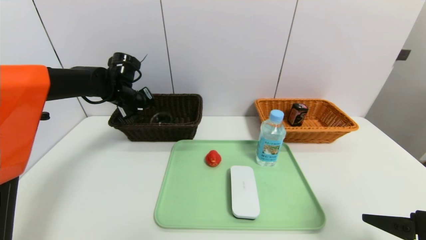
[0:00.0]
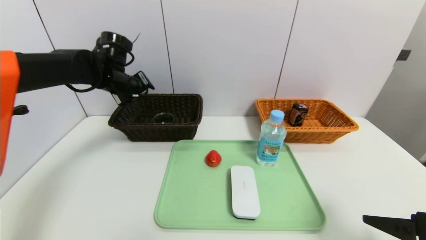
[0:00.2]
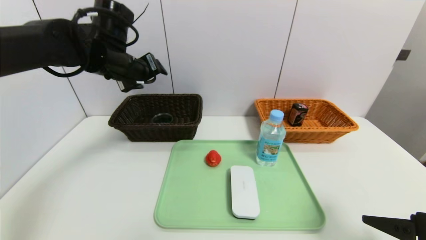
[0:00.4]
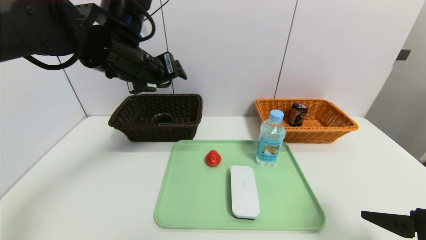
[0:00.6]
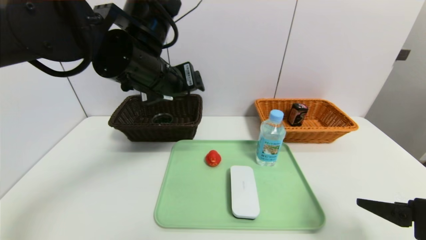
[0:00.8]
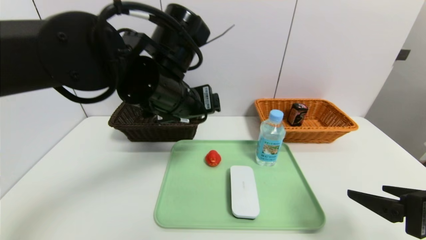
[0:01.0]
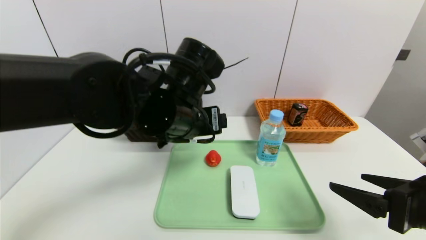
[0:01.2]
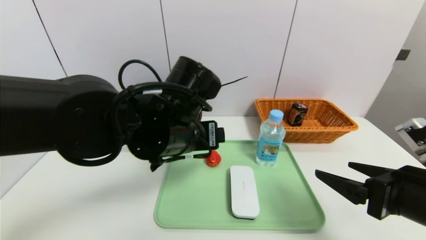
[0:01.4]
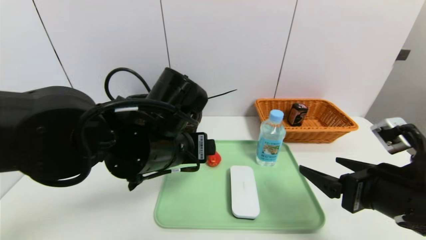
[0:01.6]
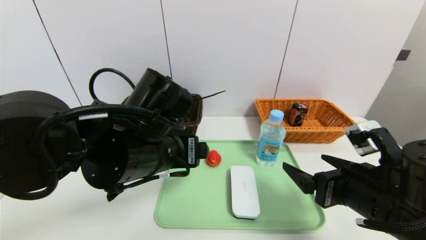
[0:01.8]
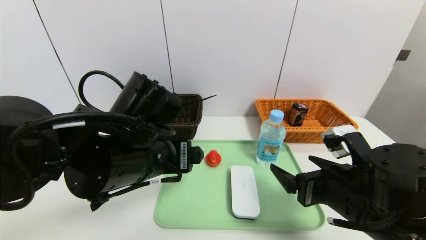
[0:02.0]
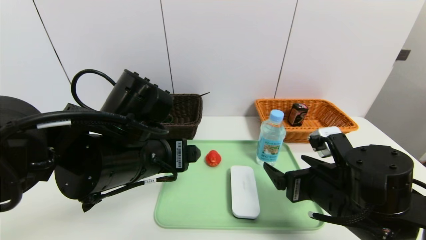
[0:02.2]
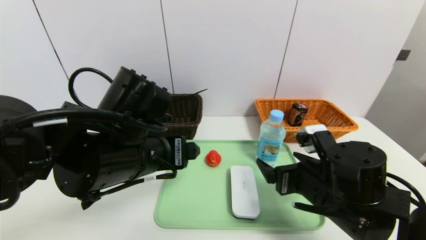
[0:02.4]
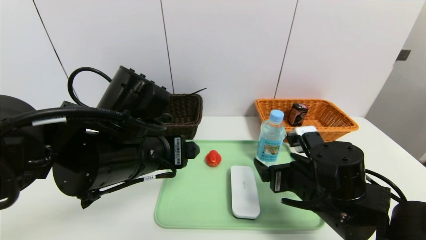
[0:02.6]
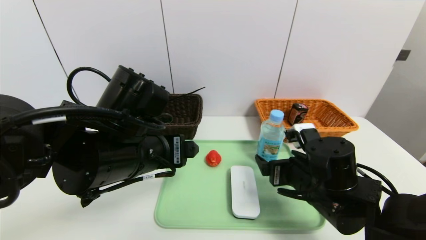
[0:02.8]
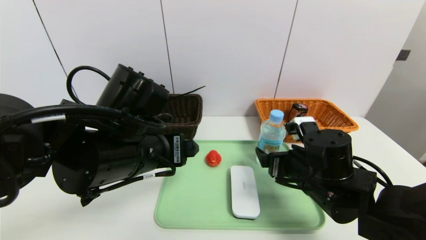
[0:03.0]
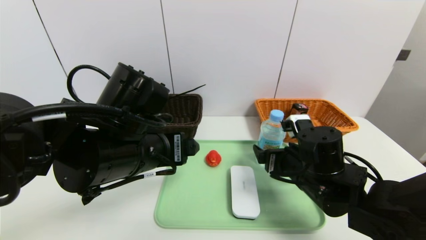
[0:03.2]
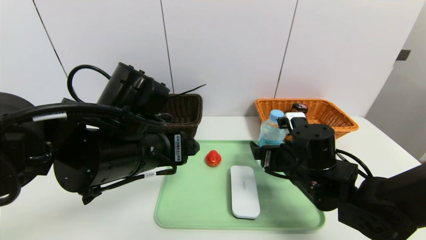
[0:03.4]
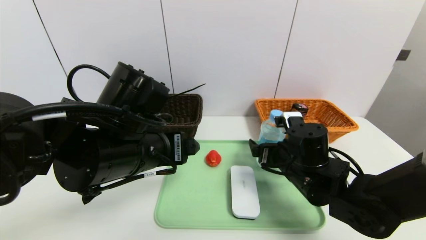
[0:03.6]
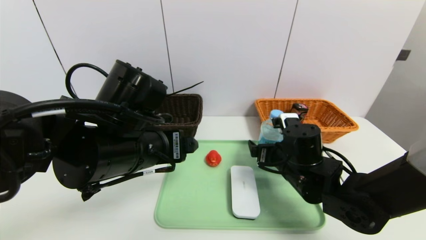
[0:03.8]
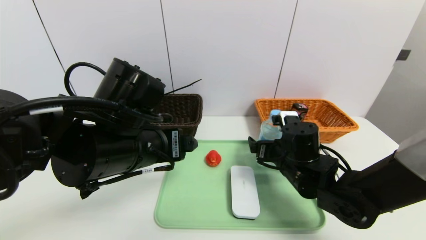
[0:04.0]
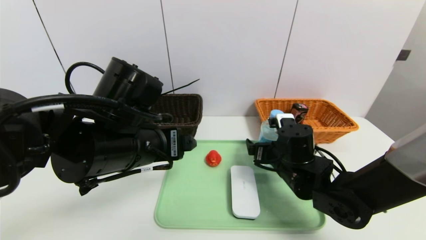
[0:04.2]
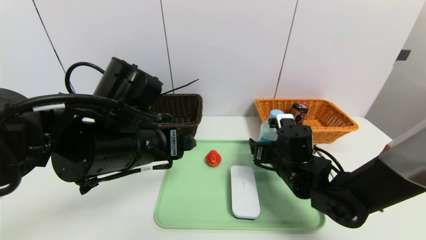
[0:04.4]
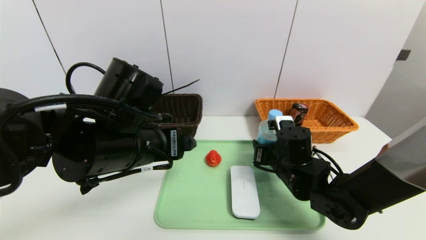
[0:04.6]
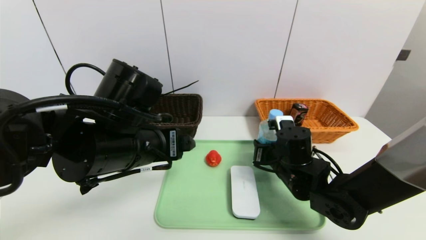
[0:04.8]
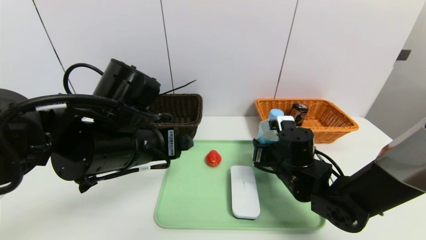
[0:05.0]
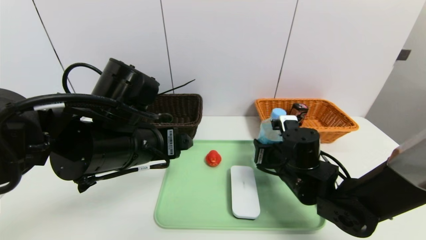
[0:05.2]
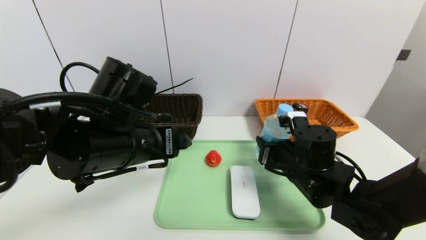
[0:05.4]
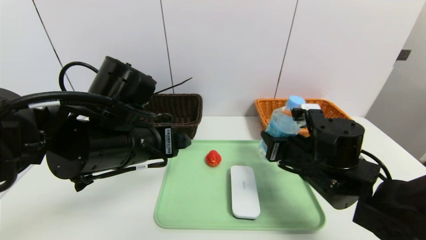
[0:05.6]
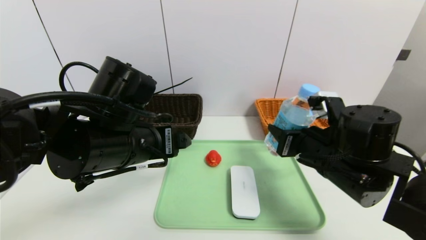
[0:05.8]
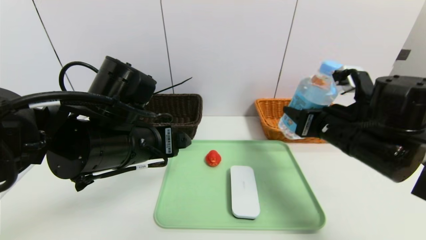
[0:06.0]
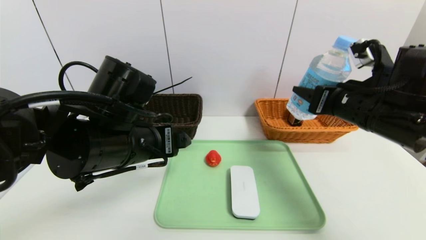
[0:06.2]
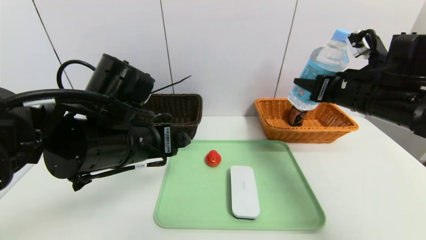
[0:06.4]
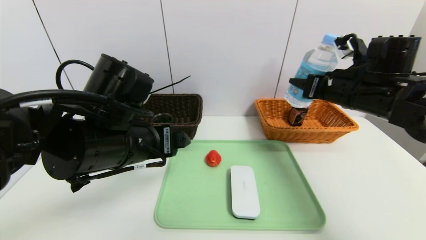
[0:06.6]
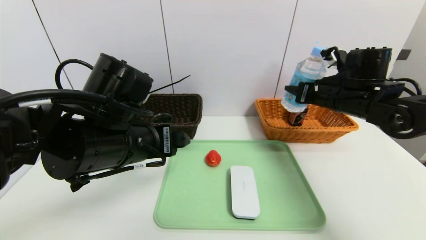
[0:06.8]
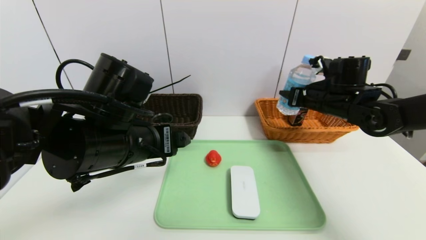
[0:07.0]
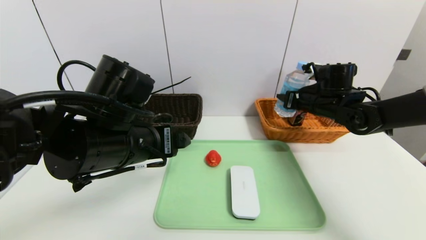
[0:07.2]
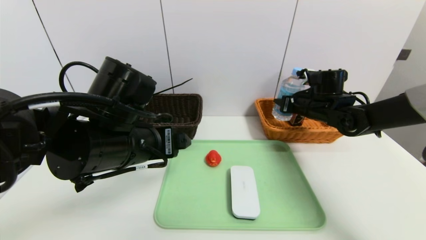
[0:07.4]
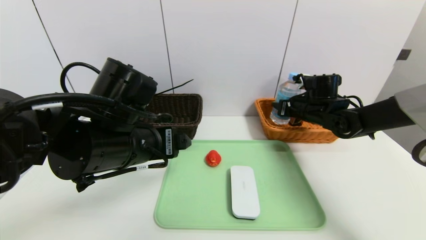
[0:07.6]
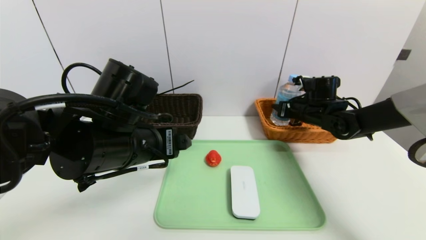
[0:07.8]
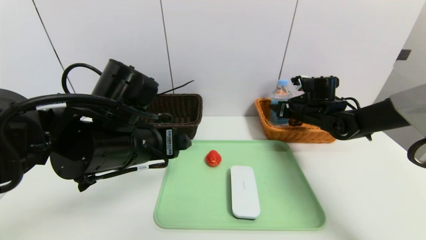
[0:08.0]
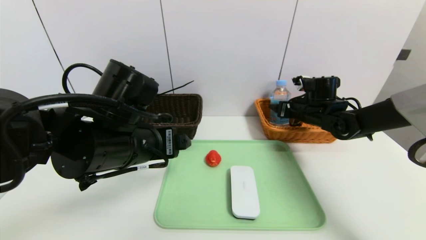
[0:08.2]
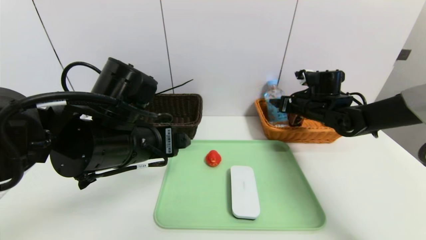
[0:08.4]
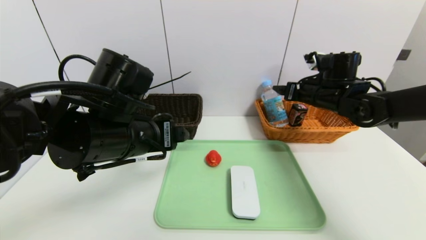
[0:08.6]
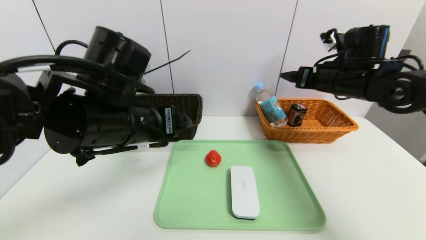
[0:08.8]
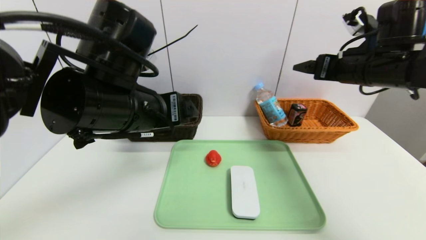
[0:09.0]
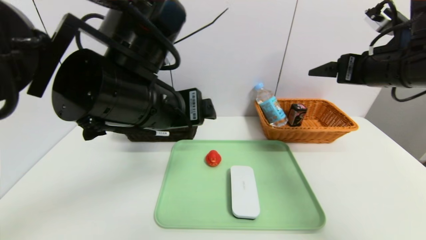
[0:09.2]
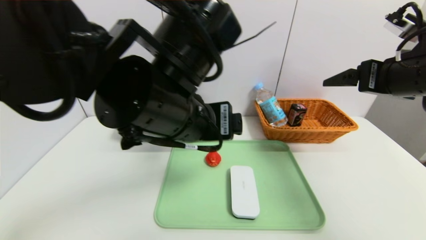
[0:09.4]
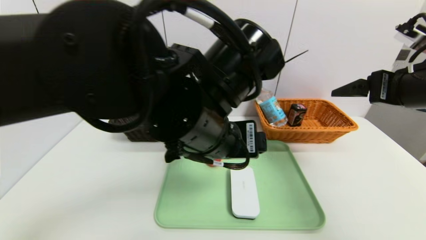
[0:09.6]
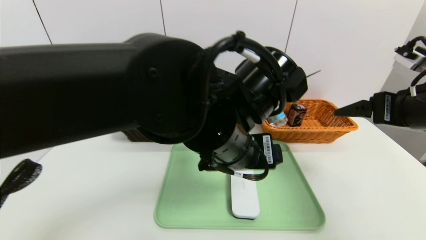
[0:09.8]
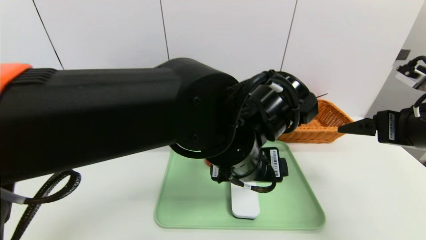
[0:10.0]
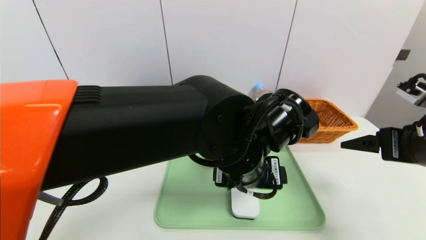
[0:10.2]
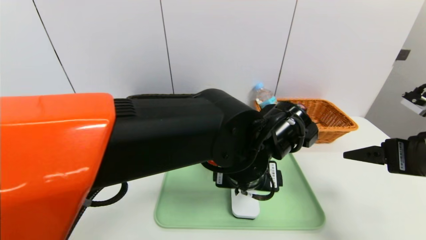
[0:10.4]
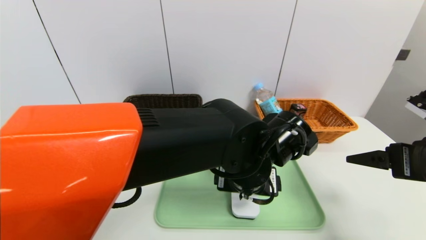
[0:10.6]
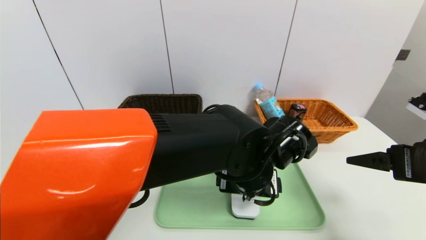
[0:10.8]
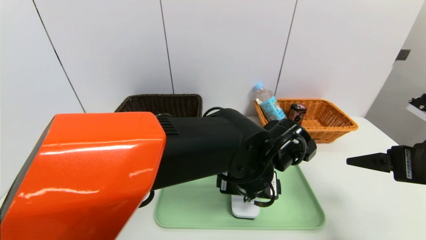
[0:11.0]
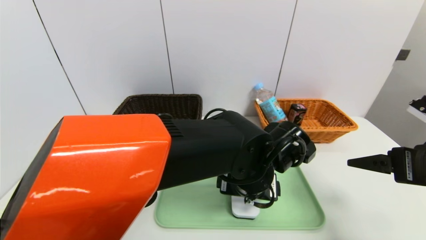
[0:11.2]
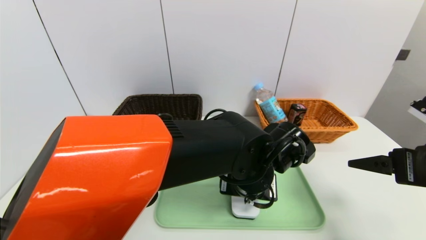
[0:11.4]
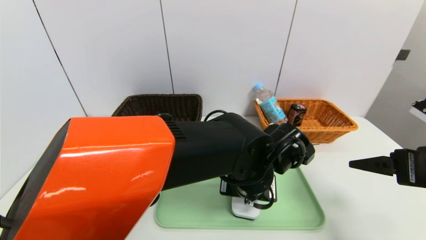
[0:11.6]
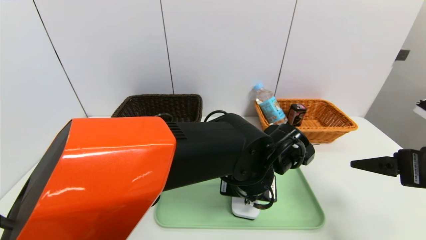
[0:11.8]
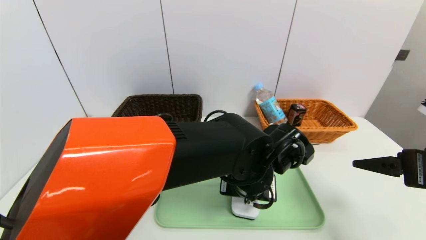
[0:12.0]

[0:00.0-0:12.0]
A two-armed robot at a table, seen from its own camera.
Task of the whole recording: place the food in the right basket with the right gripper, and place the non food items in the left basket with the left gripper.
Step, 0:00.4 to 0:08.8: Grasp the soda water and put it in the right basket.
0:00.0 to 0:01.6: The left gripper is displaced backward and to the right by some 30 cm, and opens its fingers. The right gripper moves to the left, some 5 cm.
0:01.6 to 0:03.0: The right gripper goes some 15 cm forward, to the left and downward.
0:03.0 to 0:04.4: The right gripper moves forward, about 5 cm.
0:04.4 to 0:06.0: The right gripper travels upward, to the right and backward by roughly 15 cm, and closes.
0:06.0 to 0:07.6: The right gripper moves forward, approximately 20 cm.
0:07.6 to 0:09.0: The right gripper moves upward and backward, approximately 20 cm, and opens up; the left gripper heads upward, covering approximately 5 cm.
0:09.0 to 0:10.4: The left gripper travels to the right and downward by some 20 cm, while the right gripper shifts about 15 cm backward and downward.
0:10.4 to 0:12.0: The left gripper closes.

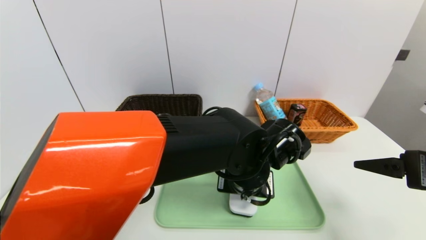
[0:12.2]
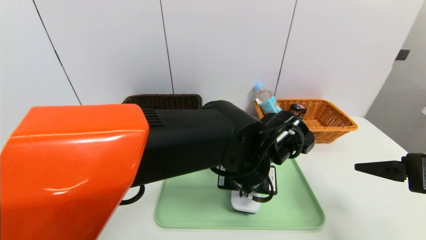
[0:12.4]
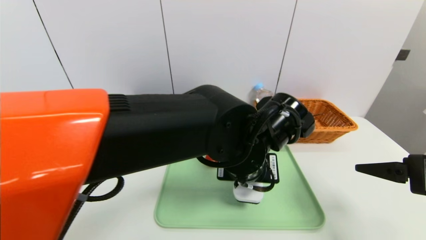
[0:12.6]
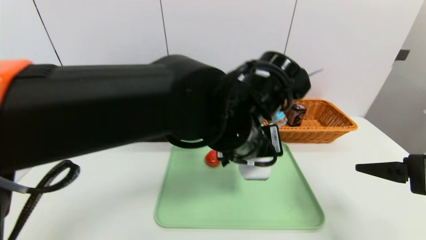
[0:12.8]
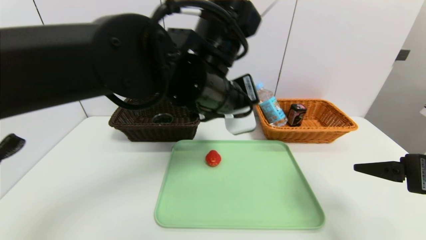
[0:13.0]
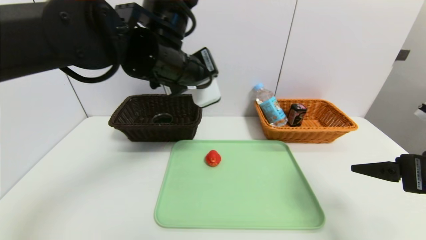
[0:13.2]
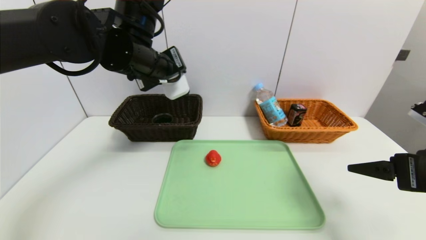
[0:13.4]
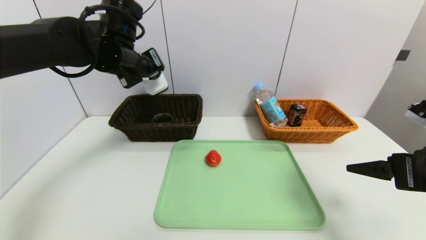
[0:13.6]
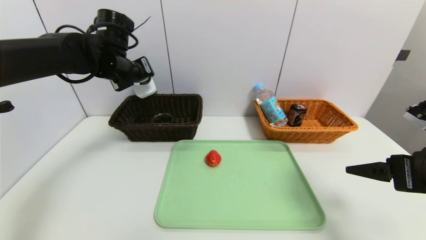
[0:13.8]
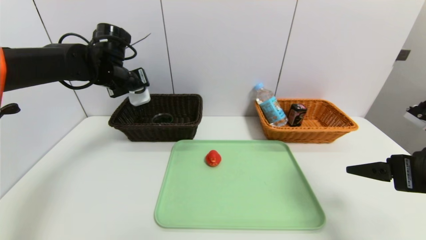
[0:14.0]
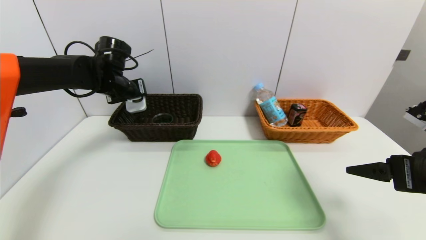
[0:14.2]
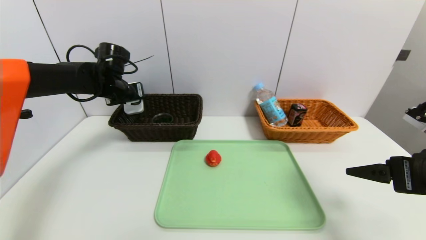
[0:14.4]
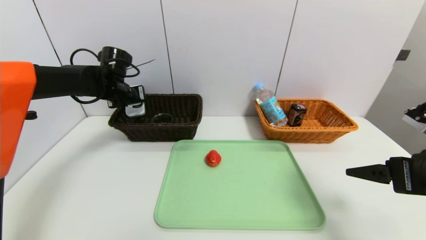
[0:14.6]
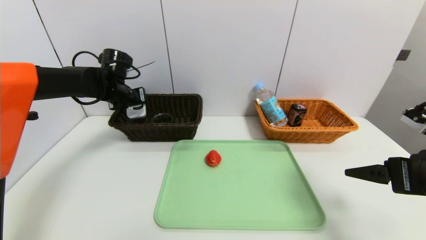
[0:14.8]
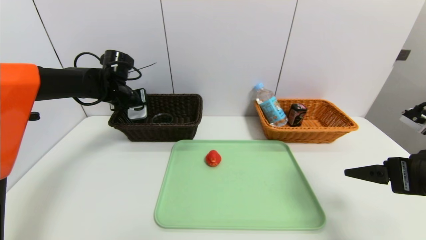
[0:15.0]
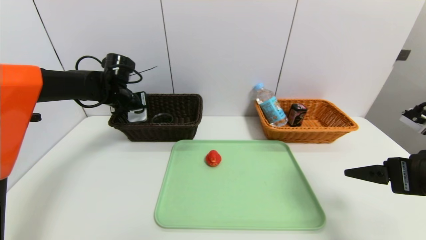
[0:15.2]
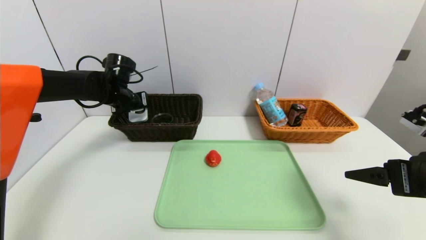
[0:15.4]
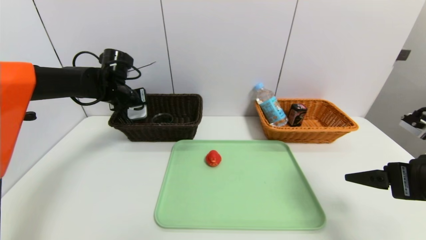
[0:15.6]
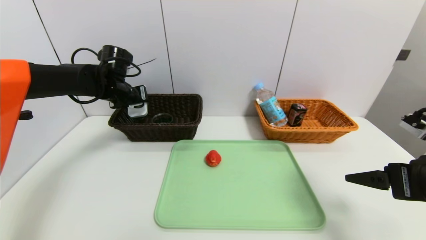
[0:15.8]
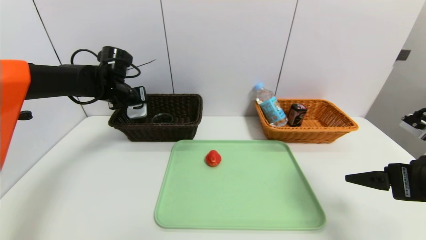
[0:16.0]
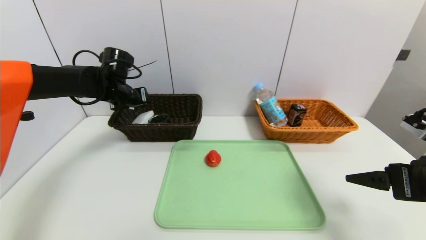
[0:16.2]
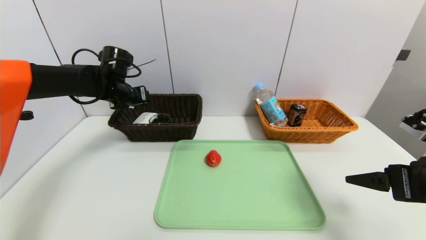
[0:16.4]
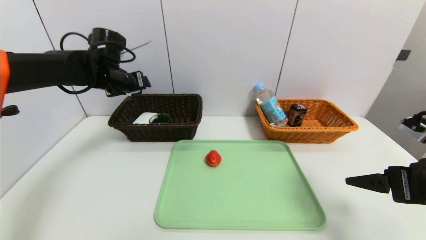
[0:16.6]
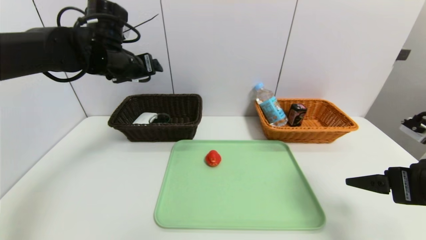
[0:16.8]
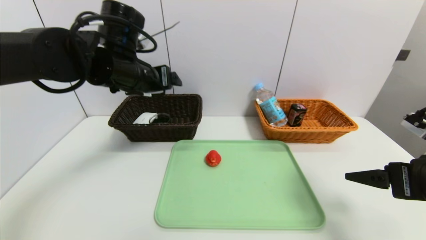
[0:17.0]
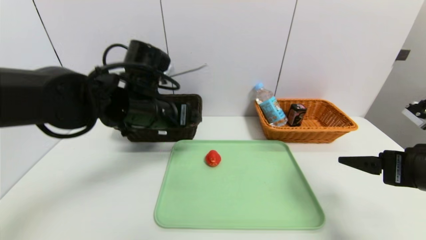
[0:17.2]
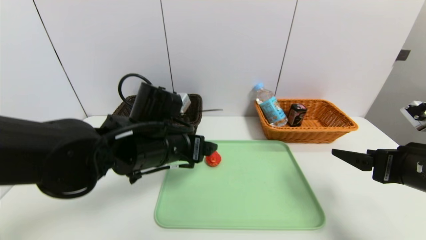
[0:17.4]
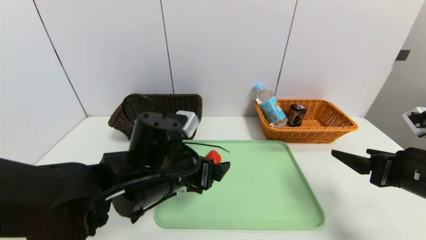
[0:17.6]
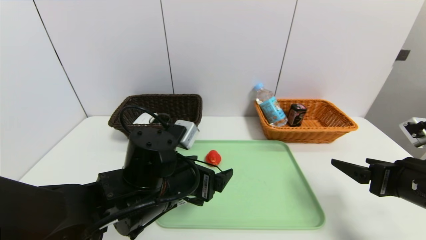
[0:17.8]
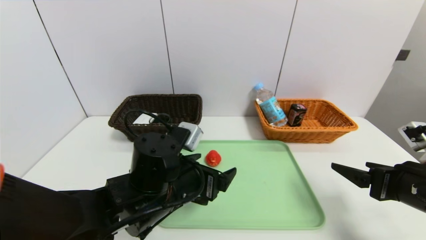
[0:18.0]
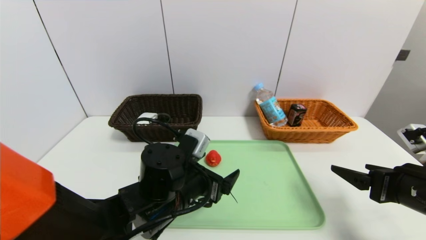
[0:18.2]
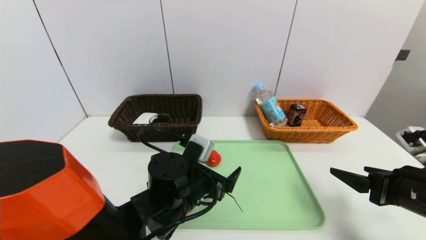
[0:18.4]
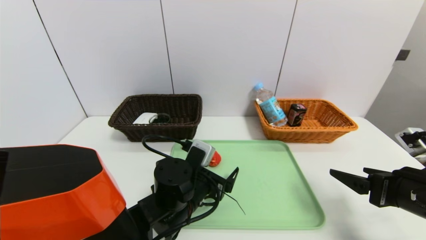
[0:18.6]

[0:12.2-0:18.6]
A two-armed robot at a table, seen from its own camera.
Task of the whole recording: place the food in the right basket with the right gripper, and place the non food items in the left basket with the left gripper.
Step, 0:12.2 to 0:16.4: Grasp the white eraser and put it in the left basket.
0:12.2 to 0:13.8: The left gripper heads to the left, forward and upward, covering approximately 35 cm.
0:13.8 to 0:15.4: The left gripper heads downward, covering approximately 10 cm.
0:15.4 to 0:17.0: The left gripper shifts approximately 15 cm backward, upward and to the right, and opens its fingers.
0:17.0 to 0:18.6: The left gripper travels downward, backward and to the right by roughly 25 cm. The right gripper moves downward, roughly 5 cm.
